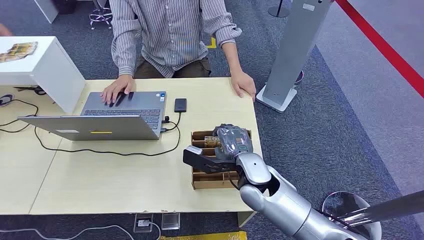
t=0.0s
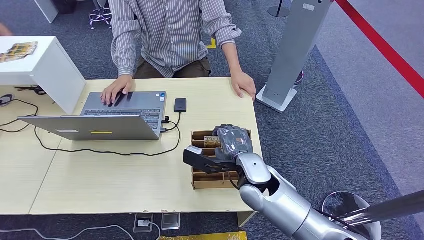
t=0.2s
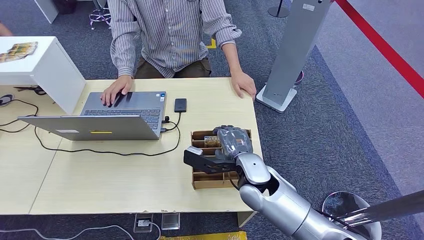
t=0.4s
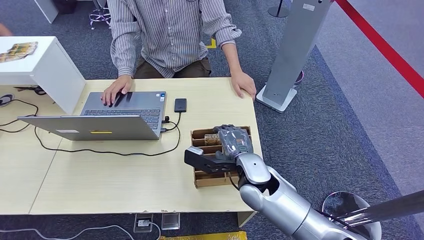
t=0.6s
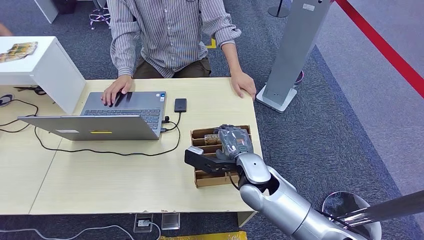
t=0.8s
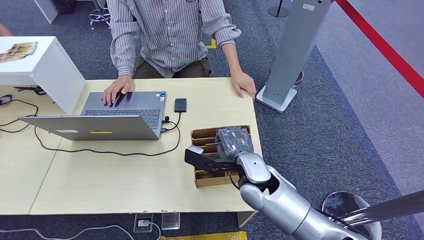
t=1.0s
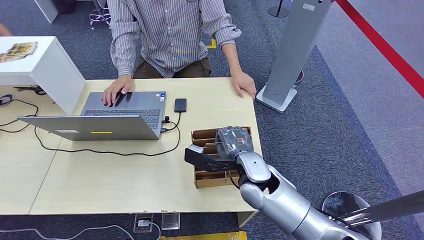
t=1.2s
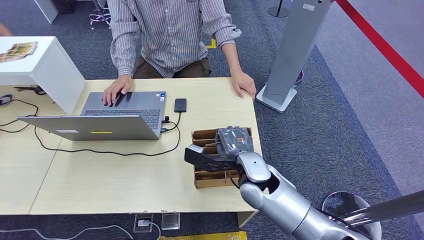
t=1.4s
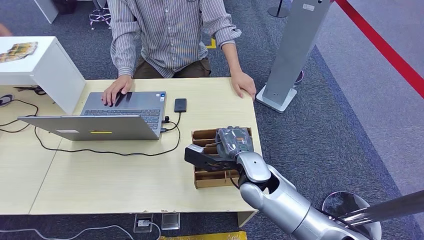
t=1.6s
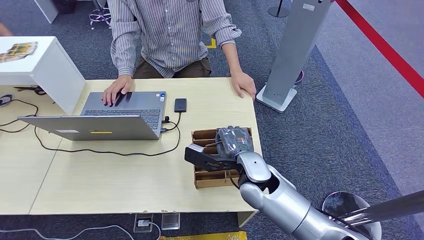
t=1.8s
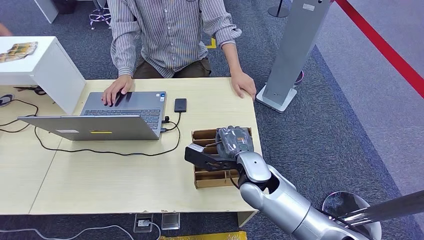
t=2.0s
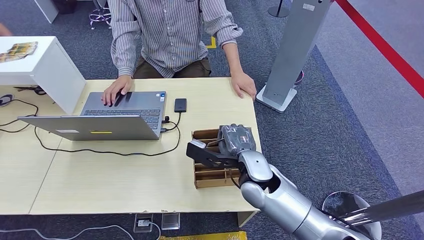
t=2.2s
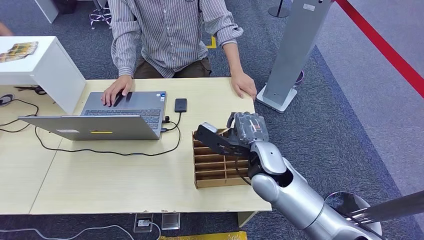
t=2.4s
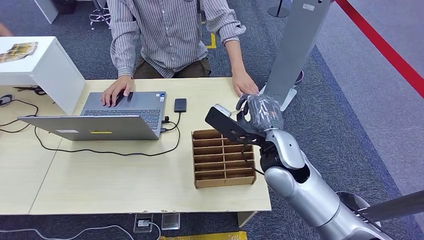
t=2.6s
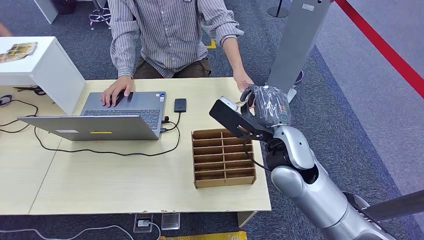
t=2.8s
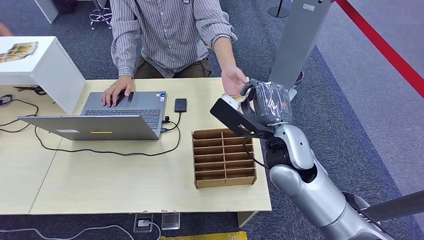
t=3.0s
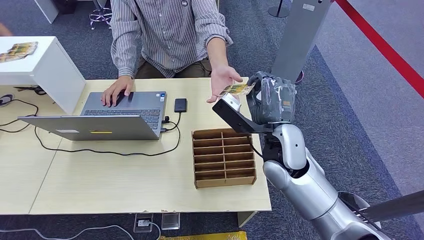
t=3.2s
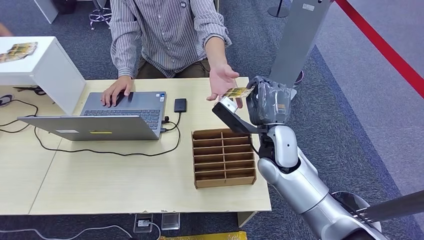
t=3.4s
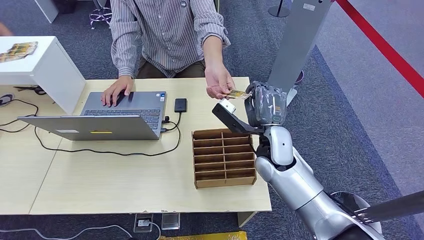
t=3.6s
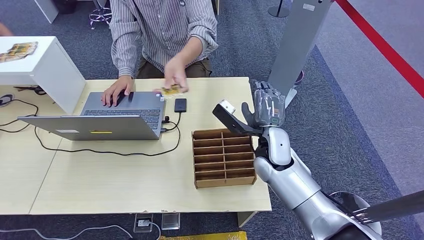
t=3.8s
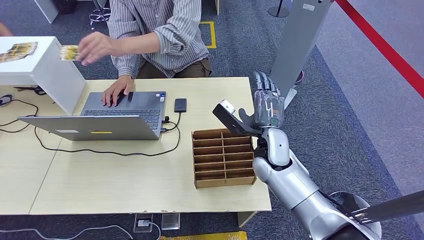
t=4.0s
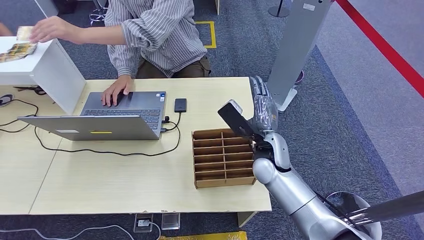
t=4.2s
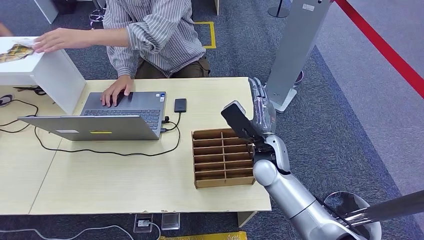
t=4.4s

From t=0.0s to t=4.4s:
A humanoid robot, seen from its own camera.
Step, from t=0.0s to t=2.6s: Pick up the key card from the card box.
Step, from t=3.4s to t=4.4s: Hand the key card to the target.
From t=1.4s to t=3.0s: The right hand shifts about 10 cm upward.
From t=3.0s to t=4.4s: The right hand travels downward by roughly 10 cm.

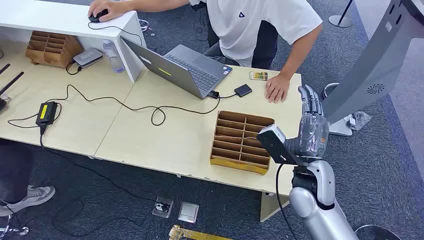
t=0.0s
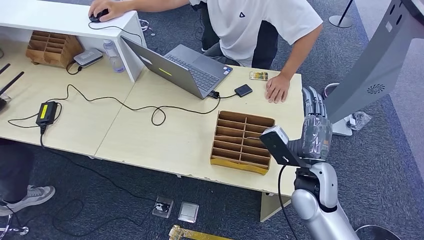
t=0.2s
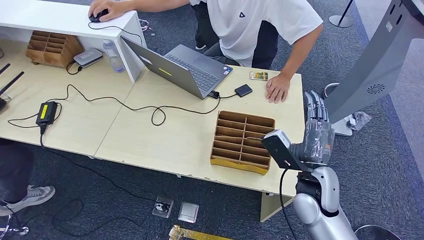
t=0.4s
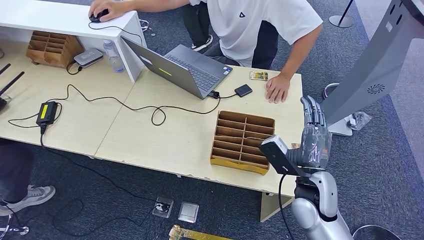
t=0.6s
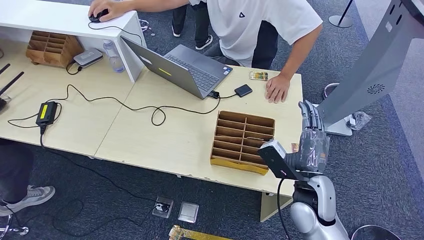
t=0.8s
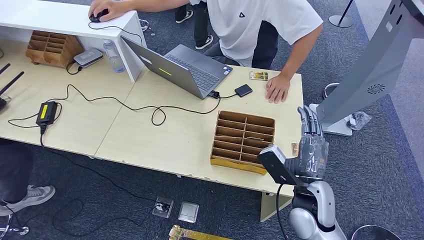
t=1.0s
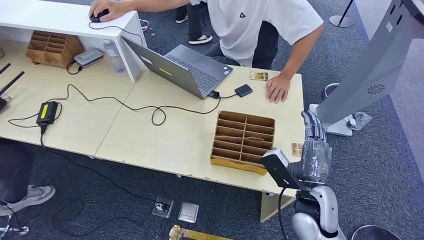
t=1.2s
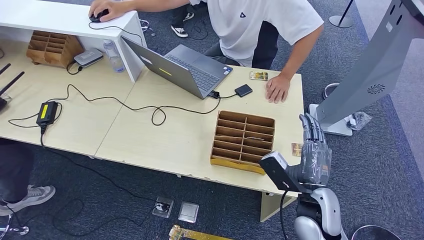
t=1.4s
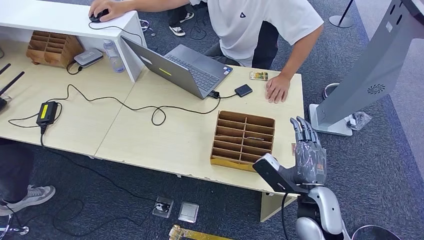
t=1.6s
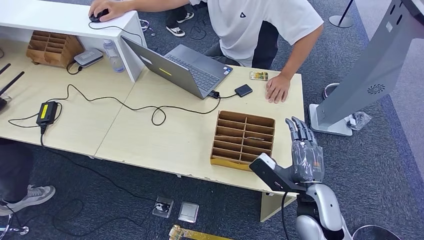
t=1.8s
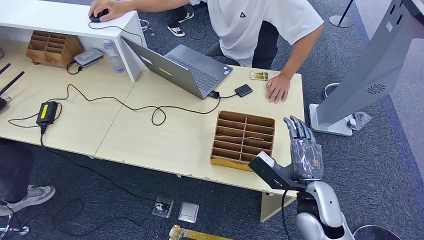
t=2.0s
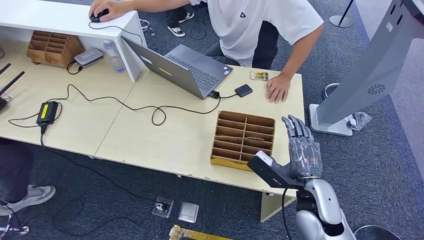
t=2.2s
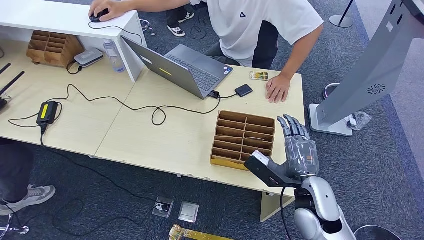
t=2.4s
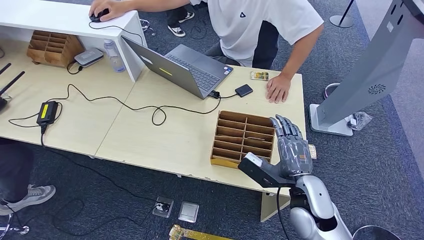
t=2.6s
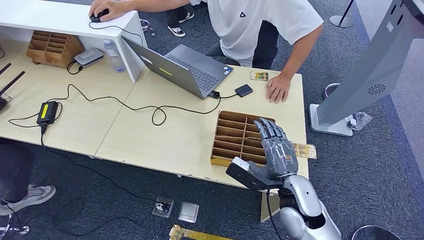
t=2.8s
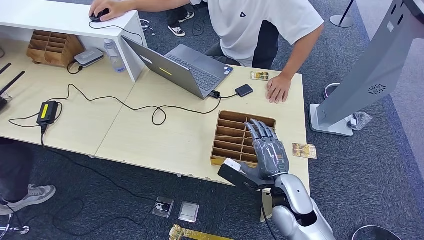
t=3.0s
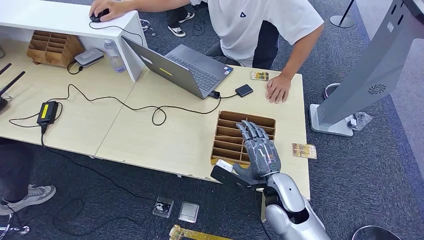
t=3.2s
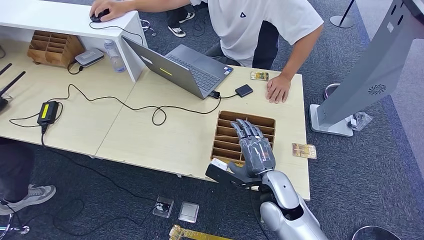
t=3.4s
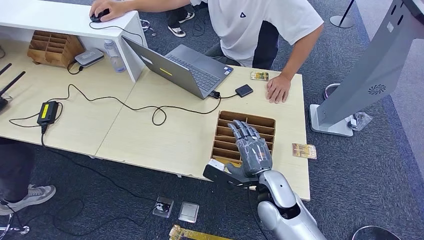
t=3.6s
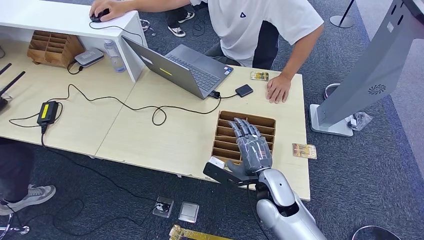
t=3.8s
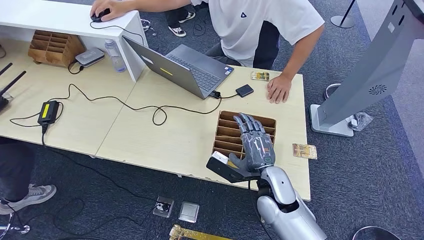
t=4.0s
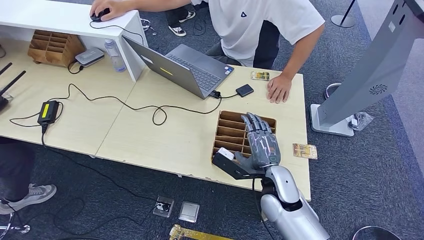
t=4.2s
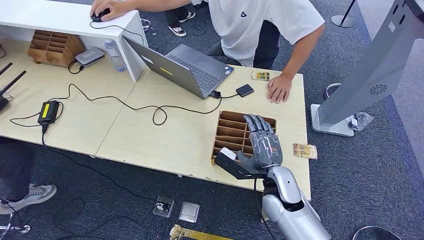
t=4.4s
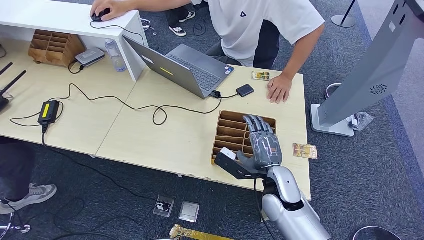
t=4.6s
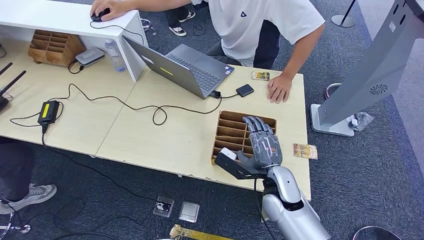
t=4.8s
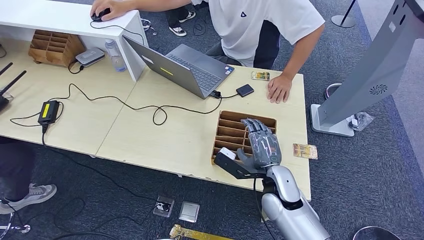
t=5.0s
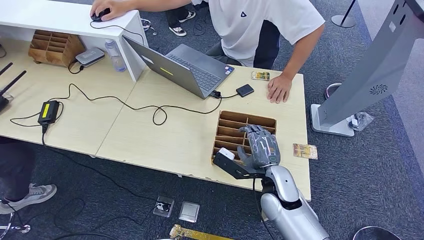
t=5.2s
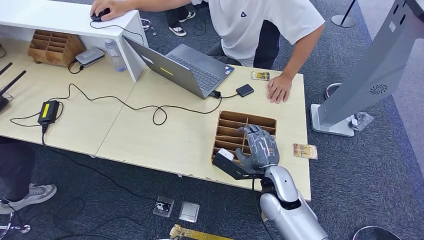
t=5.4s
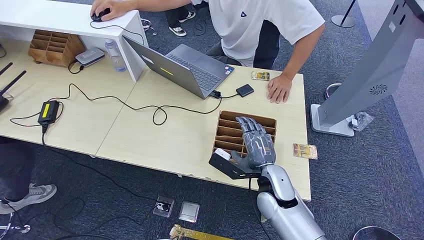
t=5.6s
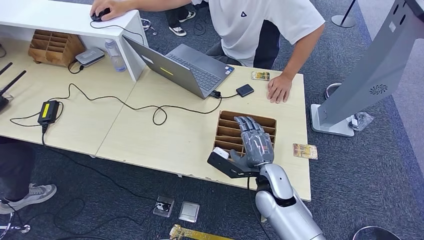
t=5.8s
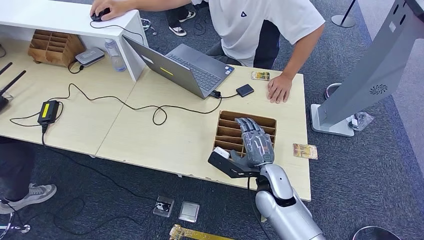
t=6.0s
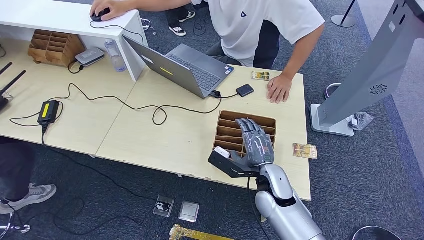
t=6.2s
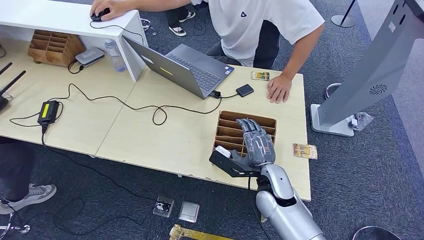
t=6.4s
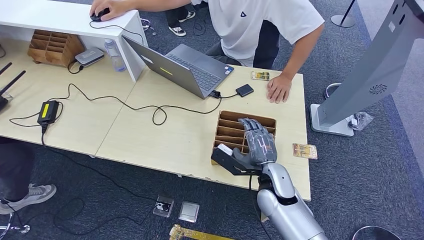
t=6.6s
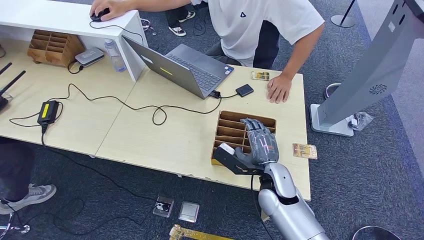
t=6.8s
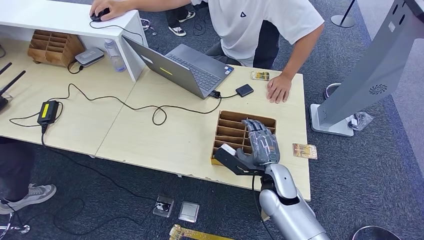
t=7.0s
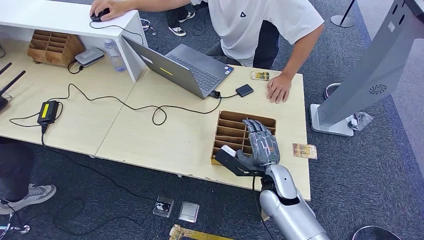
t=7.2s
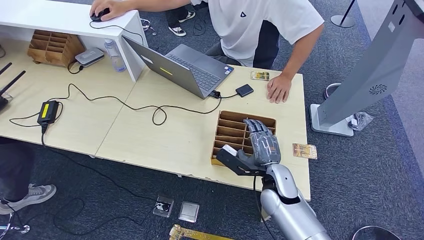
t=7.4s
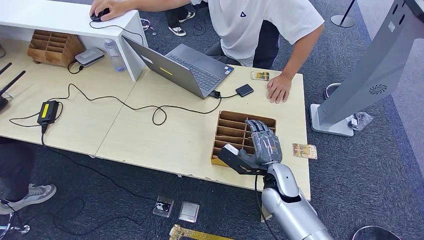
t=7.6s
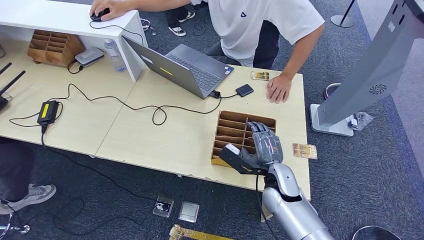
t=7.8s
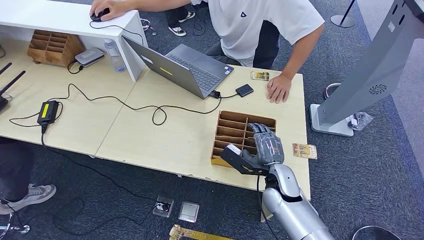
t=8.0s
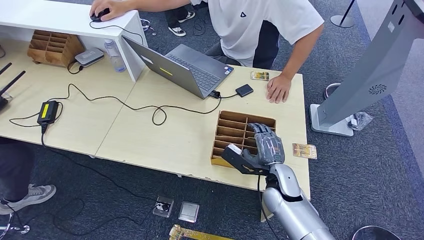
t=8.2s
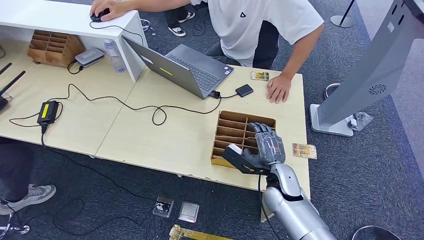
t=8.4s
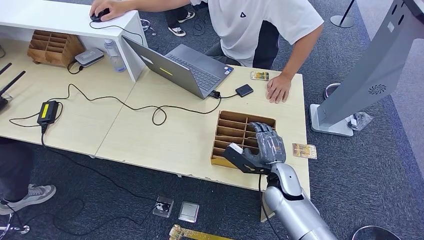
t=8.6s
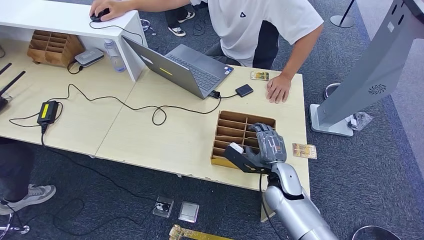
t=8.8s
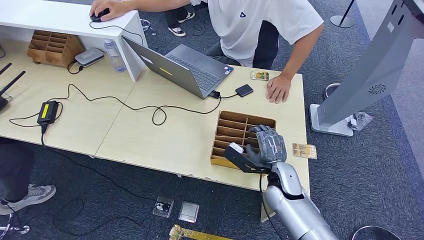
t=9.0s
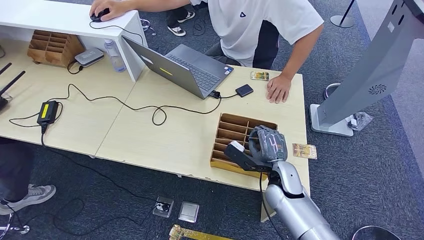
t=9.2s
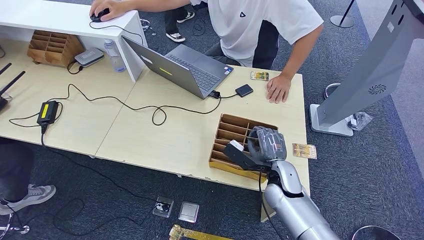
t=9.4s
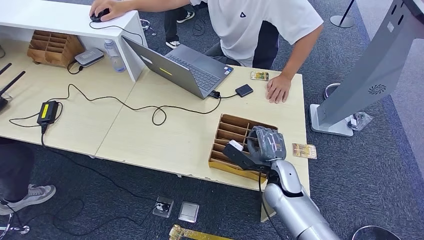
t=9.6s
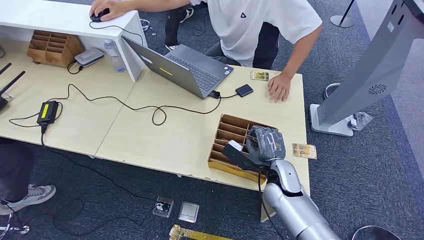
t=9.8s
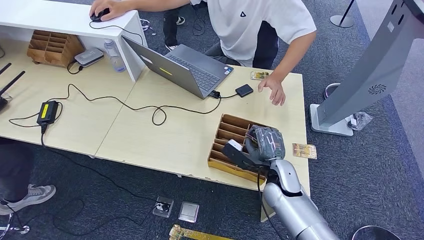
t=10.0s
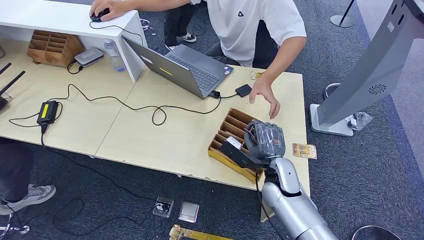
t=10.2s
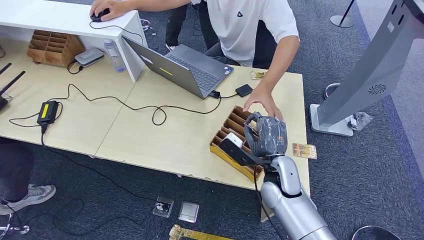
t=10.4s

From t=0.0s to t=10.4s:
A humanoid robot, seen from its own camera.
Step, from t=0.0s to t=10.2s: Pick up the key card from the card box.
From t=1.4s to t=3.0s: The right hand travels to the left by approximately 5 cm.
From t=4.4s to t=6.0s: The hands move only a little.
From t=9.0s to t=10.4s: The hands stay close to where they were, moving slightly.
